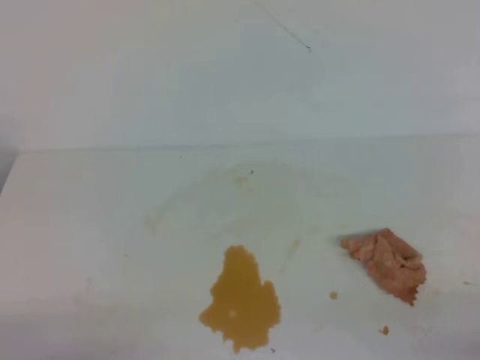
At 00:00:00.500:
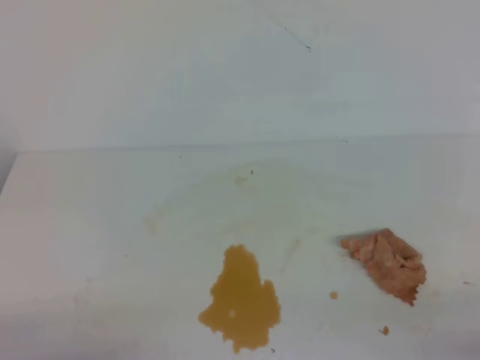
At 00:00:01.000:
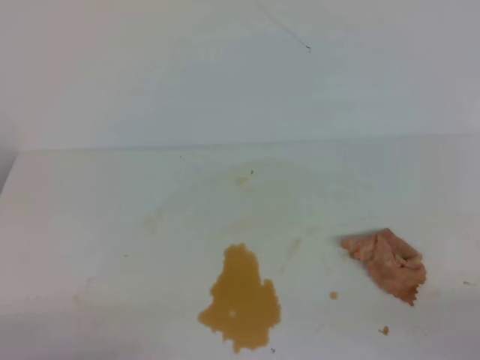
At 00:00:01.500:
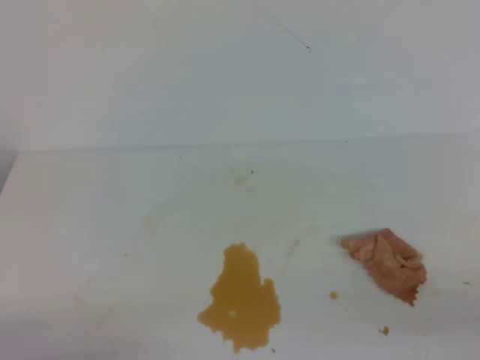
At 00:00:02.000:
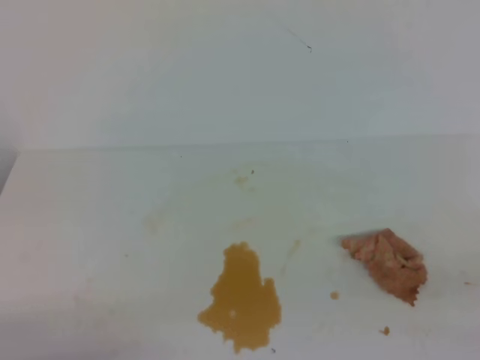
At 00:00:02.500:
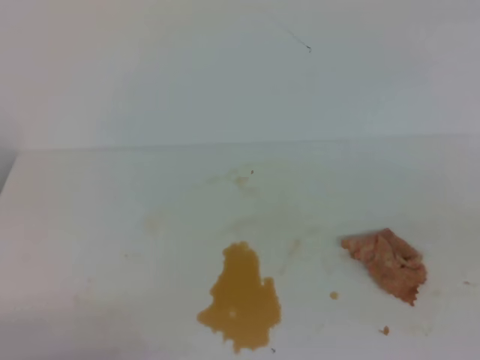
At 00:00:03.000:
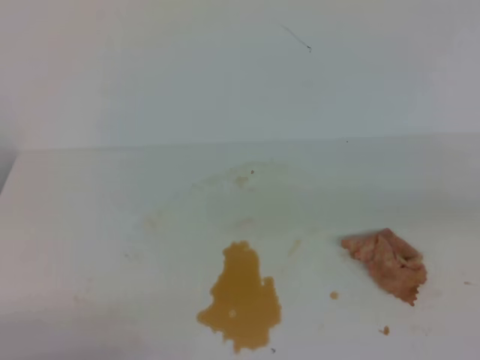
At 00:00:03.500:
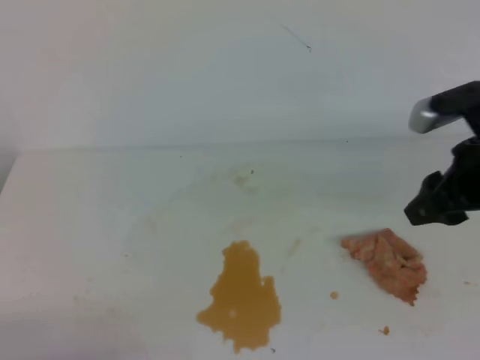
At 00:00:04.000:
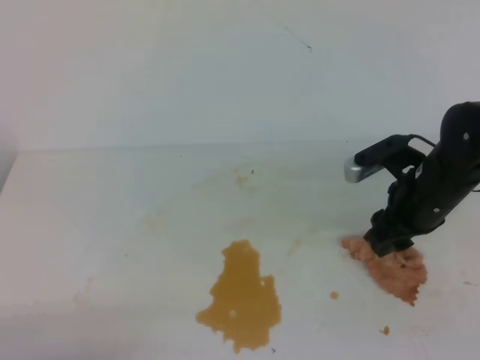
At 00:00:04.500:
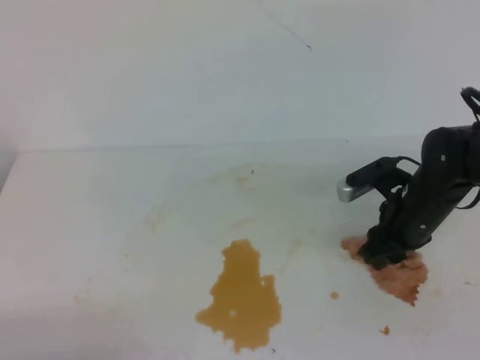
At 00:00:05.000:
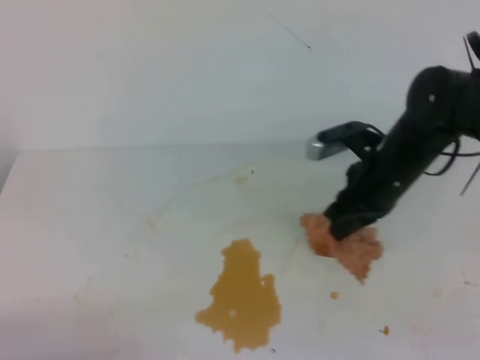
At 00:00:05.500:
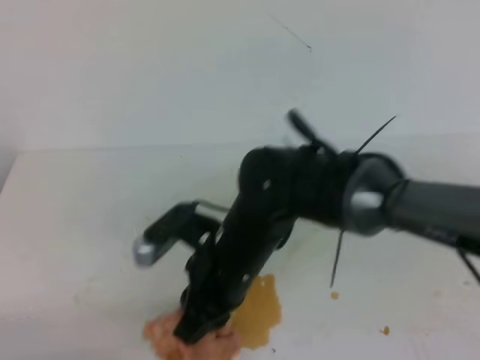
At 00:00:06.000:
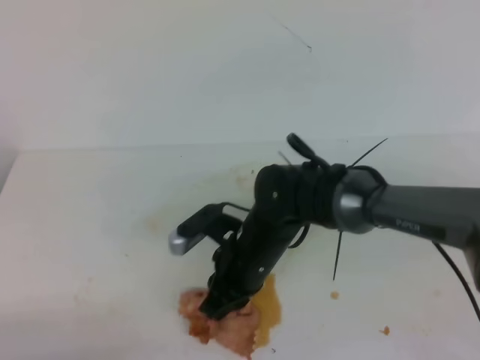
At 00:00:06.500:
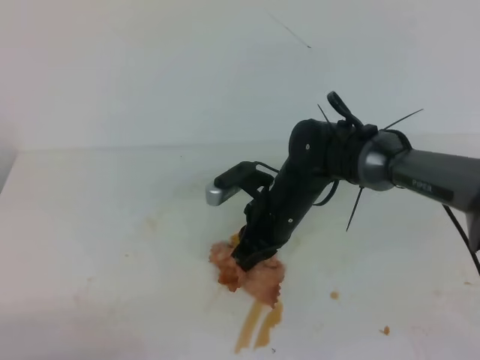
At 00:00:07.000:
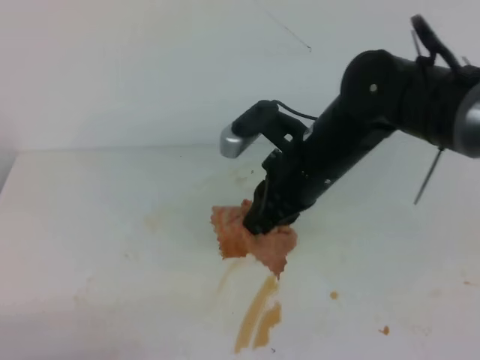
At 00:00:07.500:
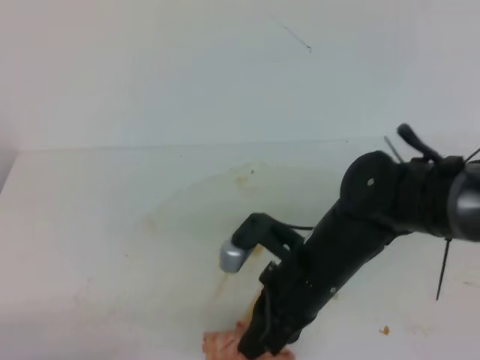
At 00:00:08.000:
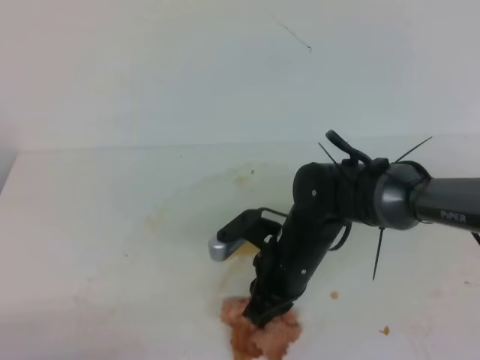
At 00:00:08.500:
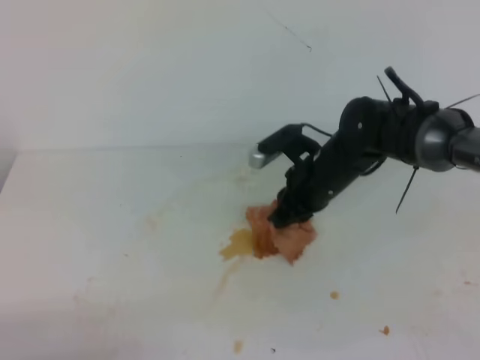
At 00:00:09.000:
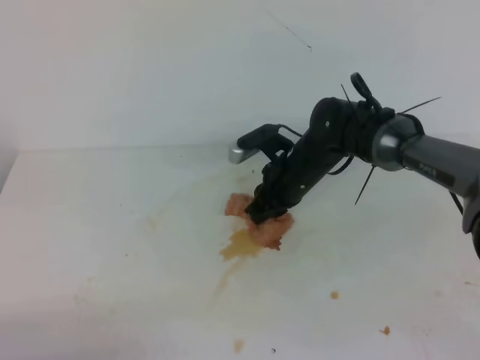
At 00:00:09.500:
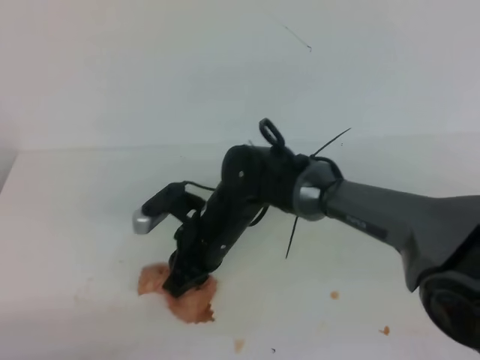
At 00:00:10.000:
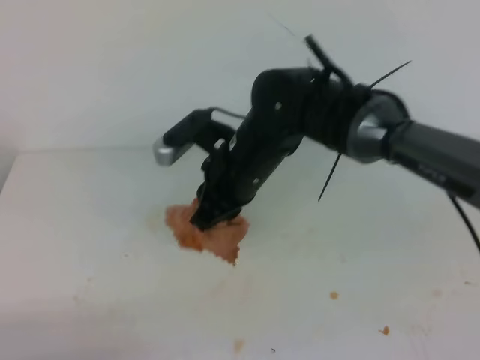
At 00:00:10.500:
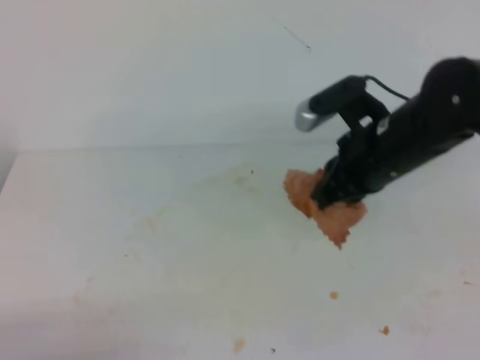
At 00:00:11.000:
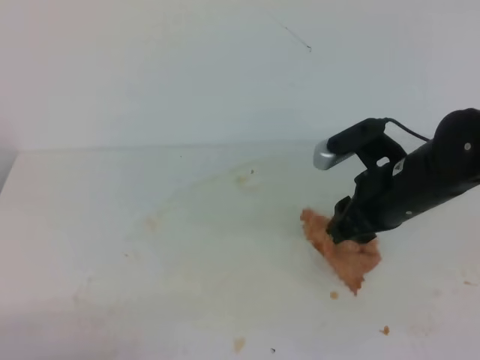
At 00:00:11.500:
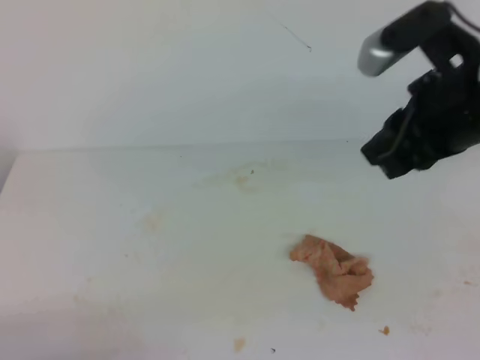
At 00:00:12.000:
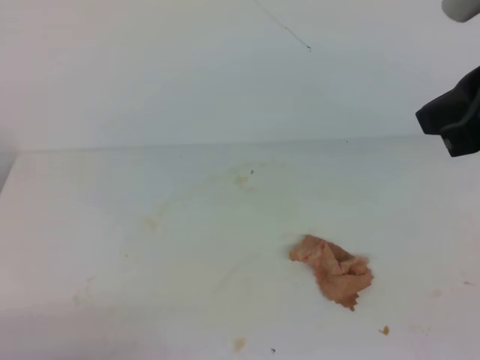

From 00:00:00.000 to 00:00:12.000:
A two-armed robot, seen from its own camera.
From 00:00:02.000 to 00:00:04.000: The right gripper heads forward, covering approximately 30 cm, and opens.
From 00:00:04.000 to 00:00:06.000: The right gripper goes about 20 cm to the left, and closes up.
From 00:00:06.000 to 00:00:08.000: The right gripper swings forward and backward, some 10 cm each way, with 2 reversals.
From 00:00:08.000 to 00:00:10.000: The right gripper is displaced upward, to the left and forward by approximately 10 cm.
From 00:00:10.000 to 00:00:12.000: The right gripper goes approximately 30 cm to the right, upward and backward, and opens, then closes again.

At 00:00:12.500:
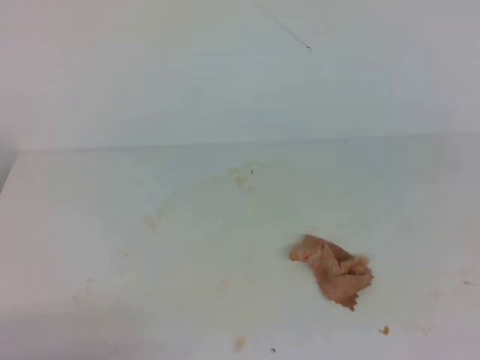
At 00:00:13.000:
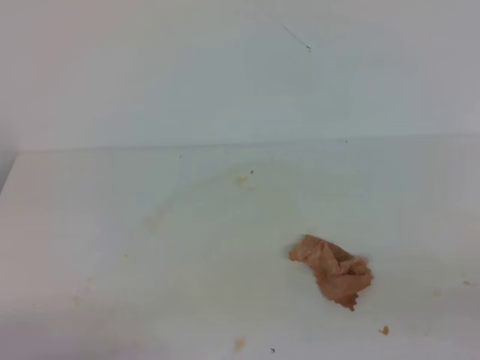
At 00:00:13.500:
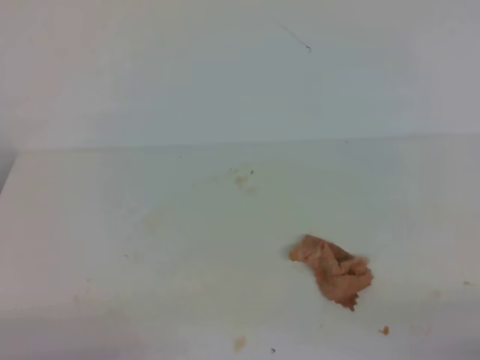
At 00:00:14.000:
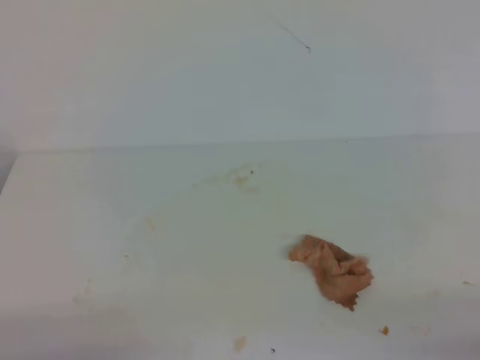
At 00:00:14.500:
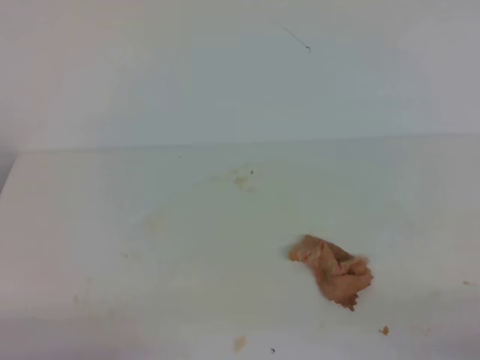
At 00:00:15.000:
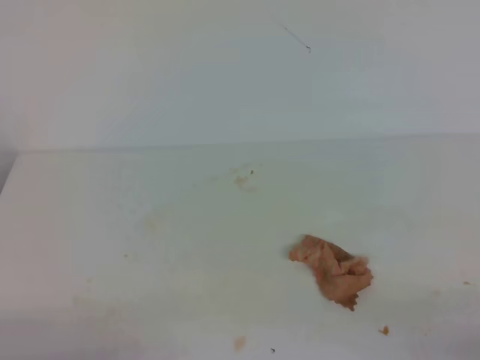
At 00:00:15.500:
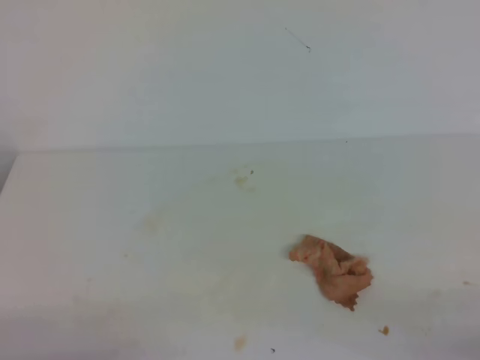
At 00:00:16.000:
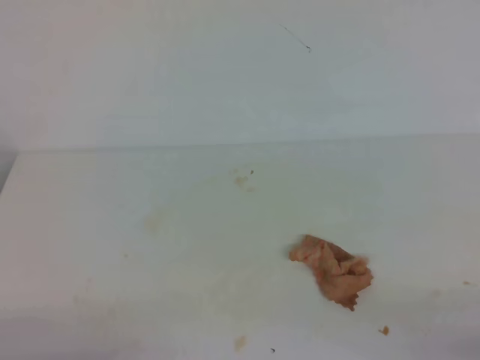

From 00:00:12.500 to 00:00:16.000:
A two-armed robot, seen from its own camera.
From 00:00:12.500 to 00:00:14.500: The right gripper travels downward and backward by roughly 25 cm.
From 00:00:14.500 to 00:00:16.000: Neither gripper changes place.
